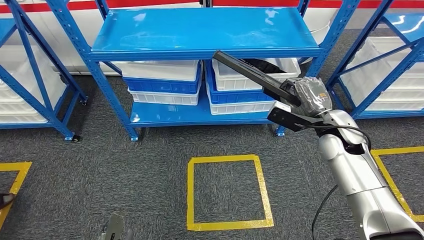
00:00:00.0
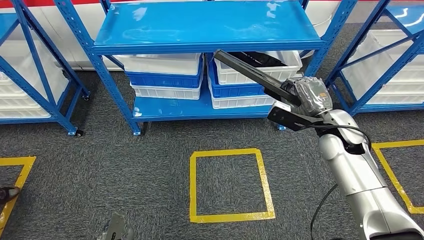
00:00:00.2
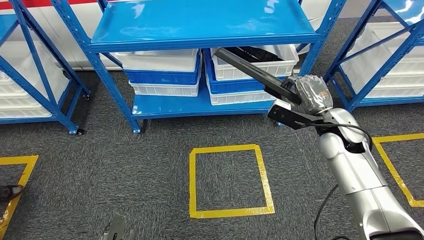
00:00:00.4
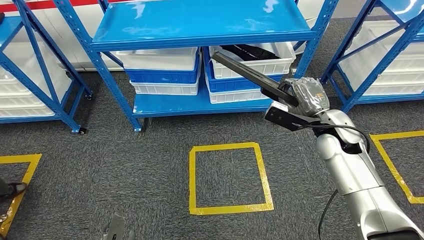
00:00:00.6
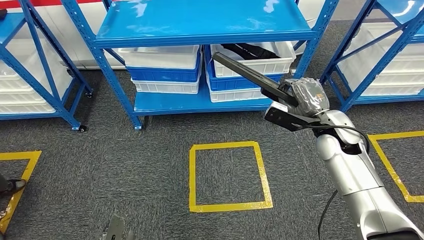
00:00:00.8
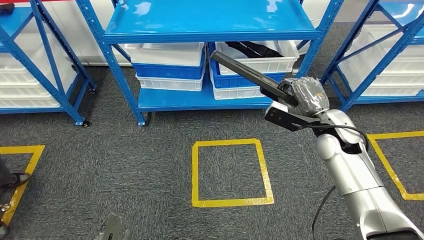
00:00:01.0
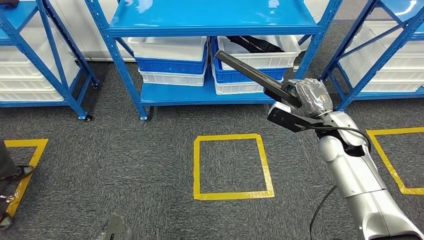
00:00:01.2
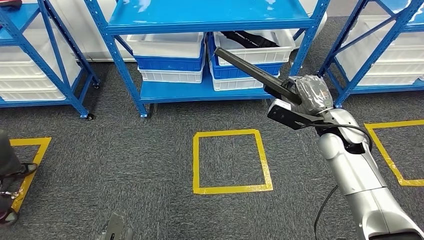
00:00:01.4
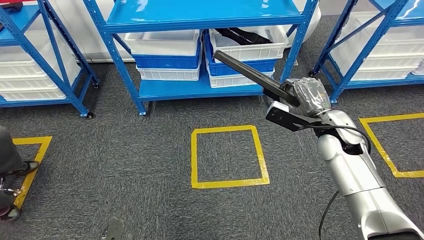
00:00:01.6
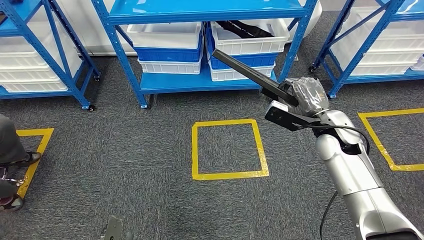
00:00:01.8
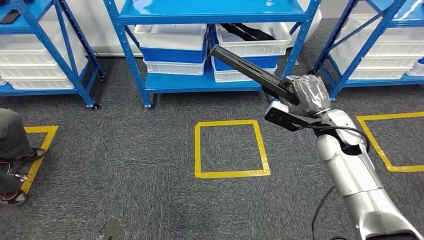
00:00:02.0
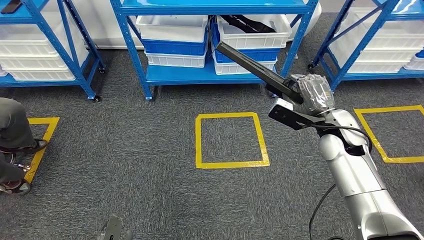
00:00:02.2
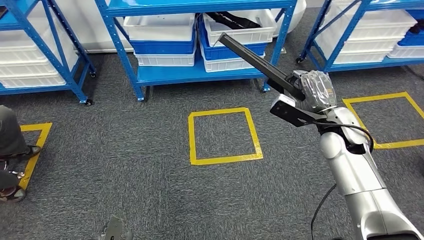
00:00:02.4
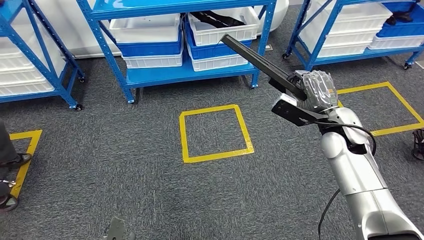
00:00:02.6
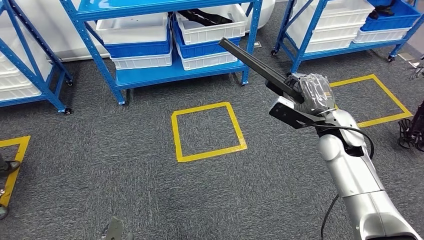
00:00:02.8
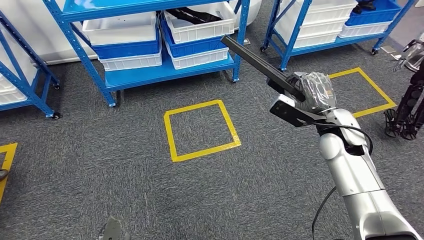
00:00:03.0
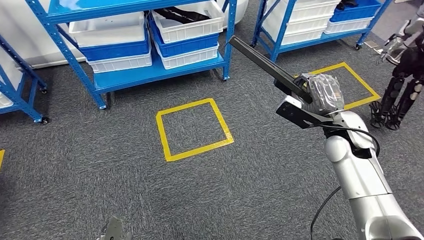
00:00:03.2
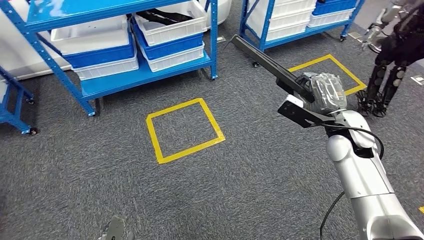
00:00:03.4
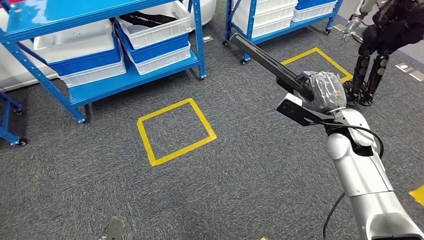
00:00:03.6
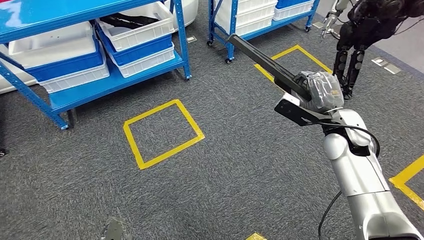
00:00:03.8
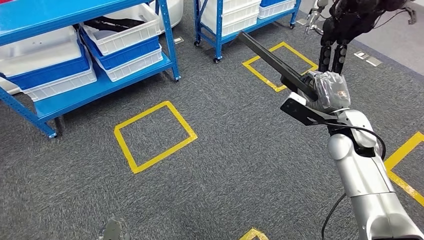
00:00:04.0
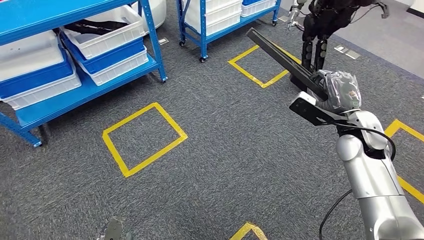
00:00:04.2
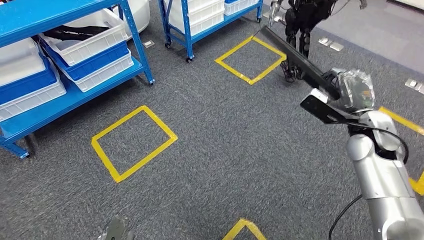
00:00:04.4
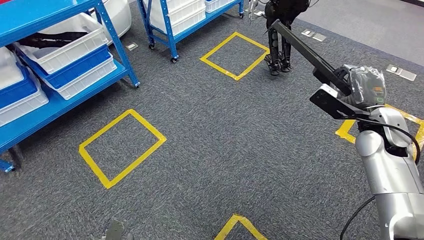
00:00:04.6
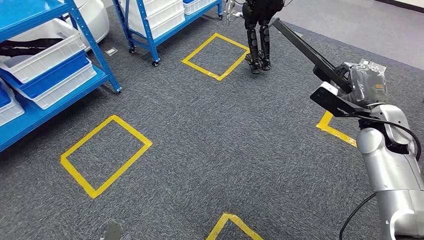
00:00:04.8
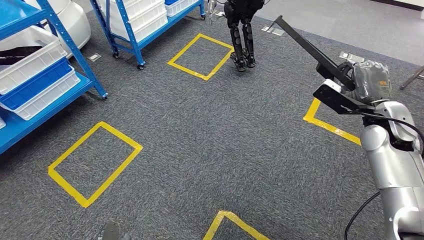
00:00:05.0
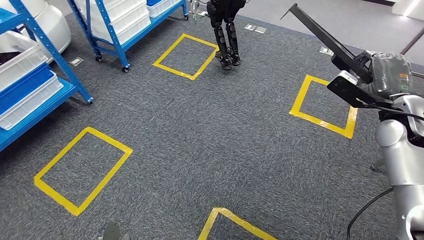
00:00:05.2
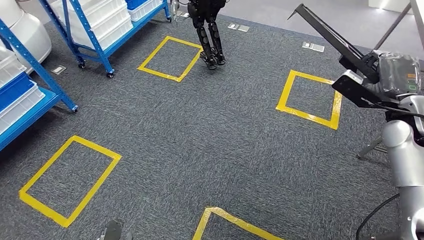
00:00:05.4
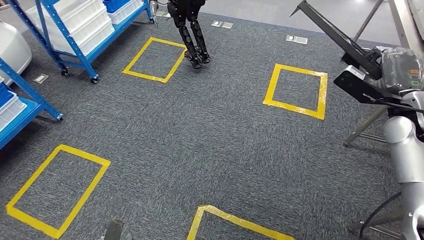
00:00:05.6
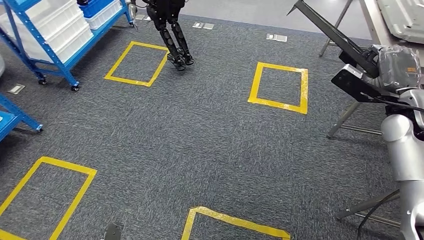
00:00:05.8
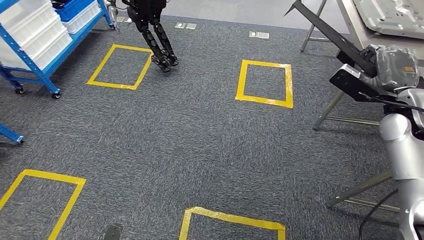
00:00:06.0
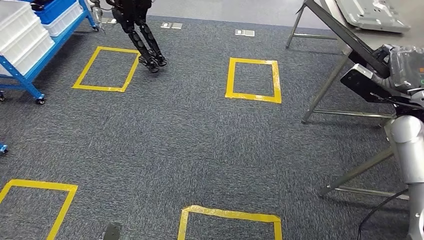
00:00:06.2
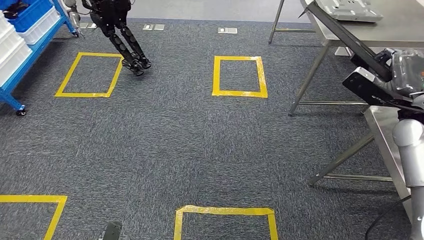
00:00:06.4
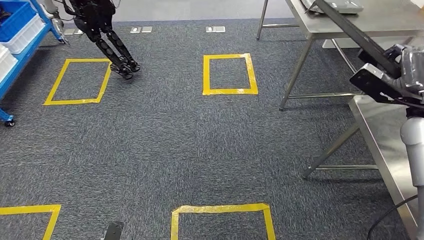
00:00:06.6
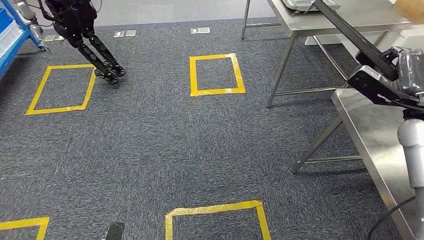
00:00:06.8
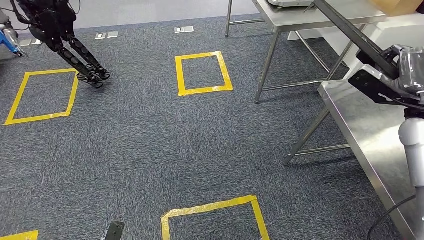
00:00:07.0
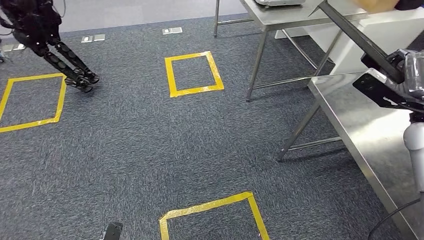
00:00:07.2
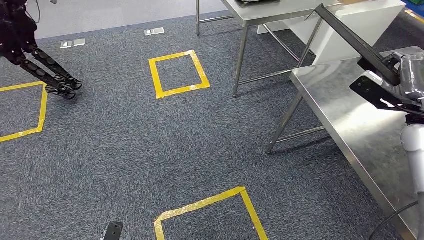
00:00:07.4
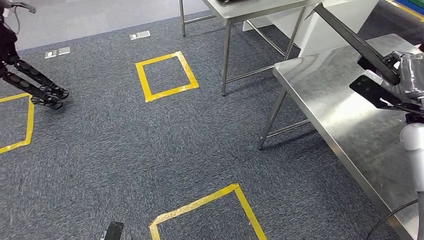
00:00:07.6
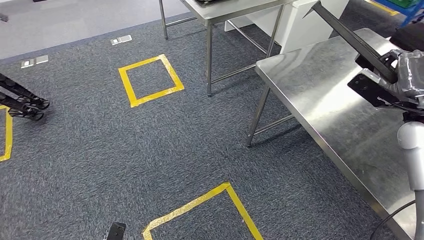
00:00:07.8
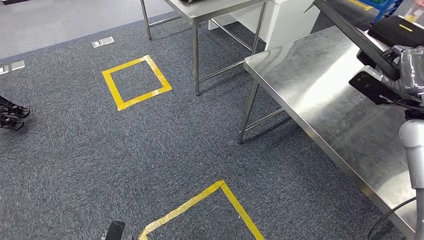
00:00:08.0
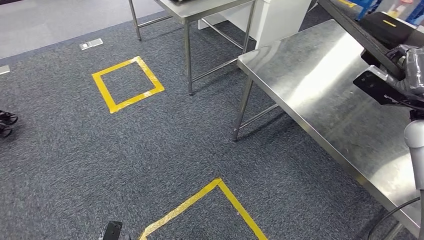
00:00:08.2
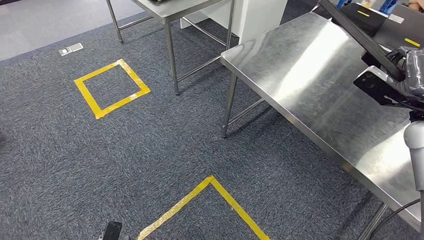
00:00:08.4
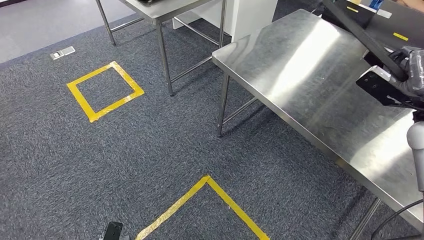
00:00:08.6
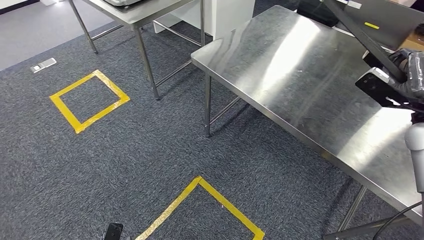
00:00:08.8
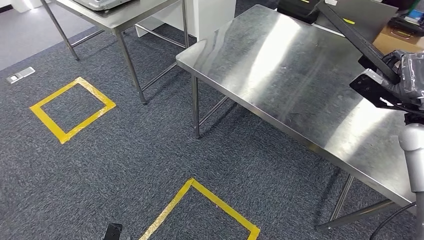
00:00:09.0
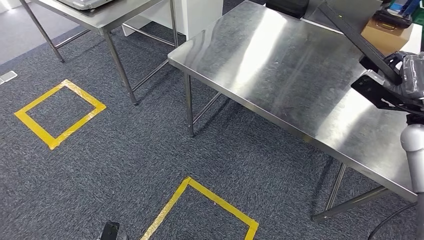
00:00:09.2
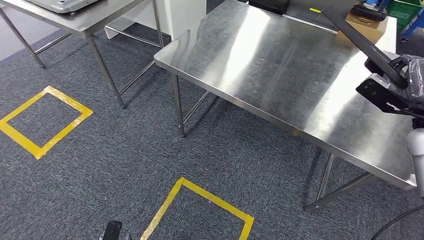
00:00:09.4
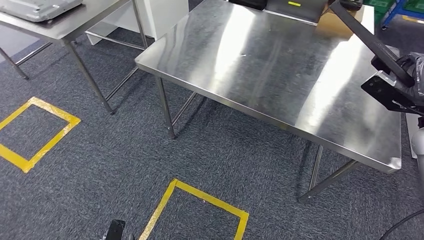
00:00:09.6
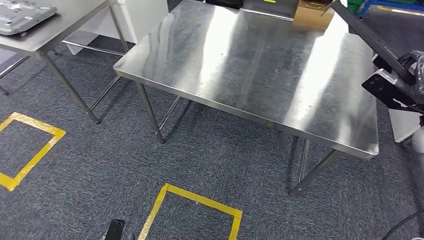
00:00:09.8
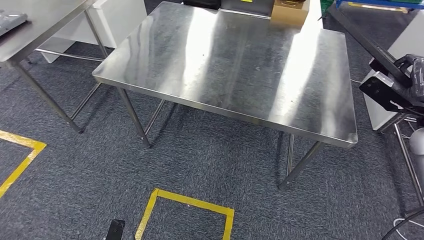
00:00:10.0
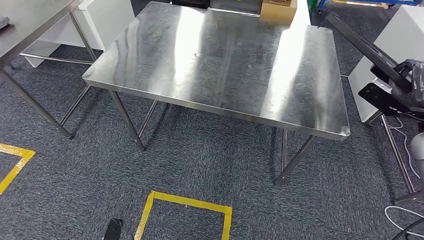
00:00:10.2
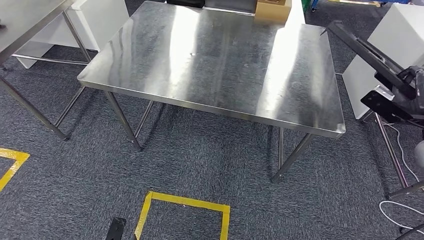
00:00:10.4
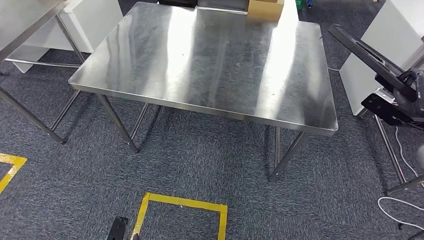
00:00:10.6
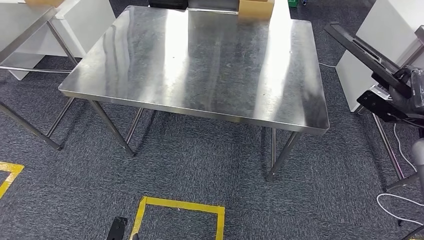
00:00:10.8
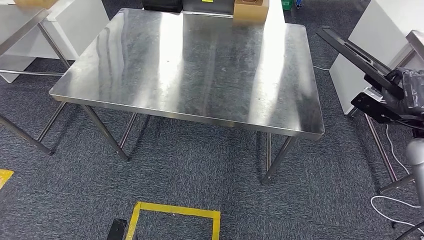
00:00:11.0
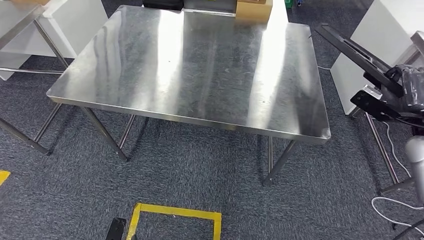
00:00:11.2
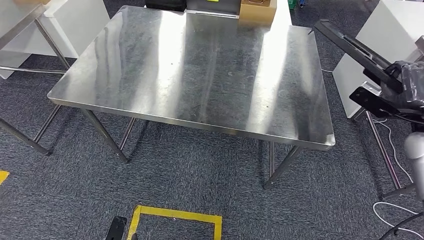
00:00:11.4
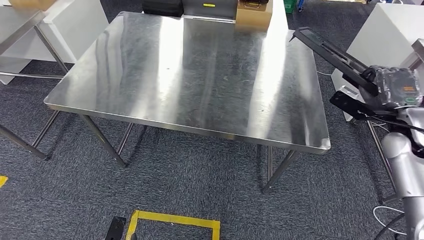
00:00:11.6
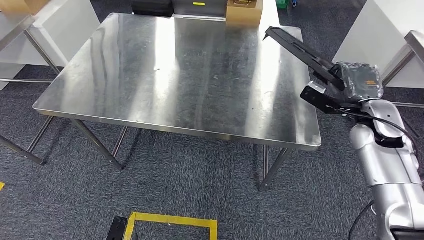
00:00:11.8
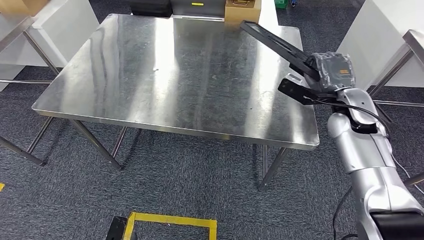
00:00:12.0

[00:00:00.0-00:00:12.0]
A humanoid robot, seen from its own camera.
Step, 00:00:00.0 to 00:00:11.8: Move the large material to the front of the workbench.

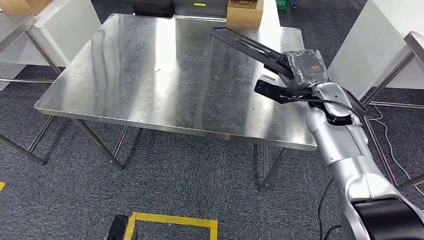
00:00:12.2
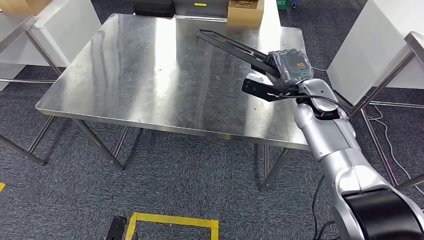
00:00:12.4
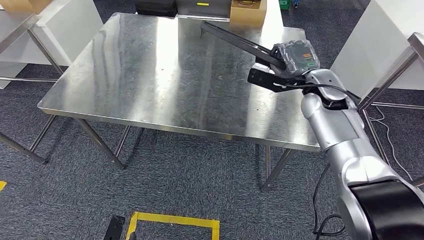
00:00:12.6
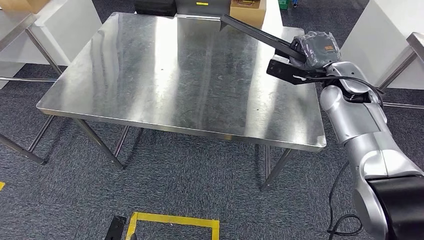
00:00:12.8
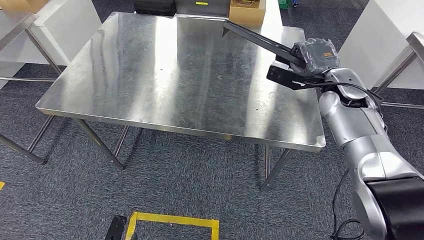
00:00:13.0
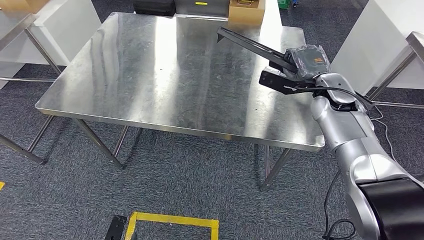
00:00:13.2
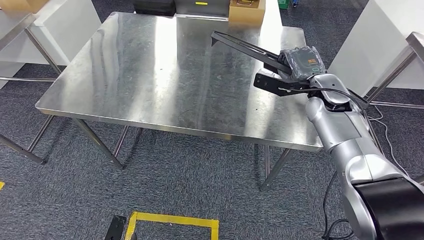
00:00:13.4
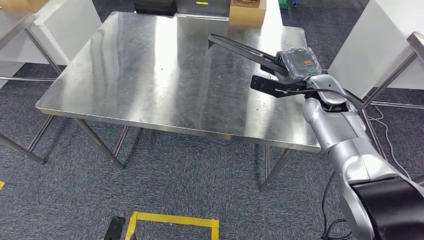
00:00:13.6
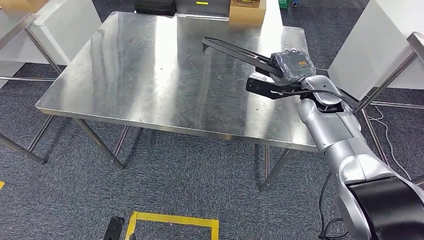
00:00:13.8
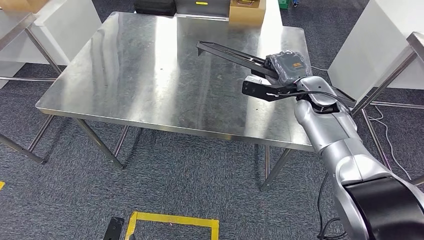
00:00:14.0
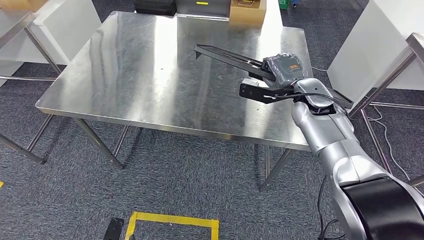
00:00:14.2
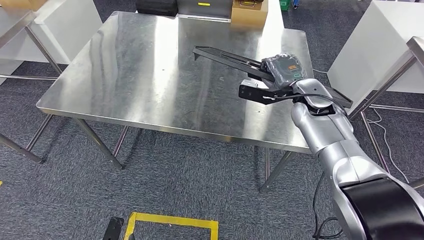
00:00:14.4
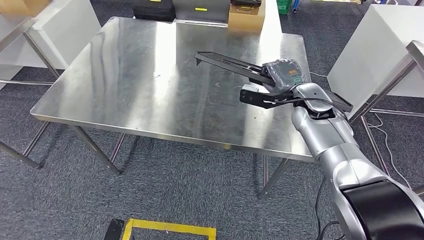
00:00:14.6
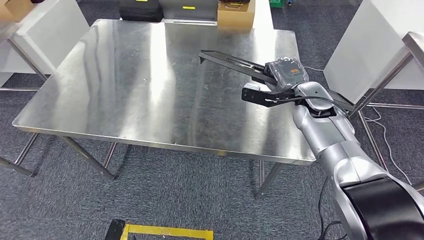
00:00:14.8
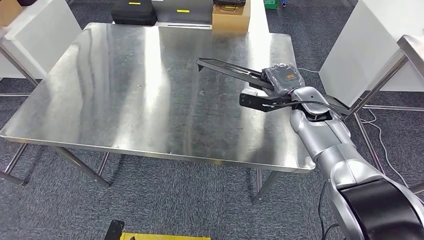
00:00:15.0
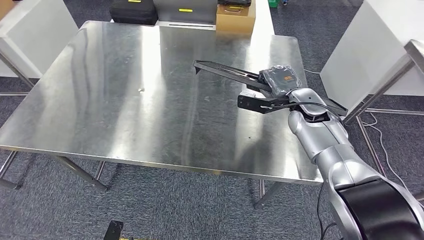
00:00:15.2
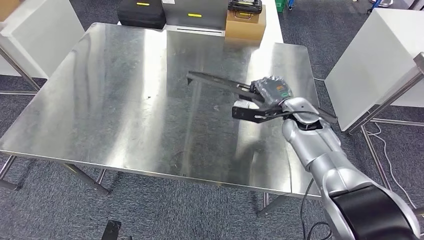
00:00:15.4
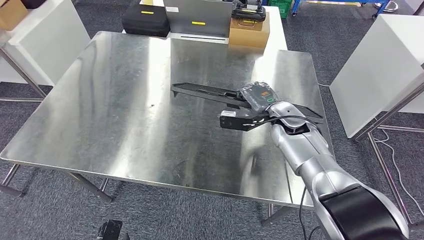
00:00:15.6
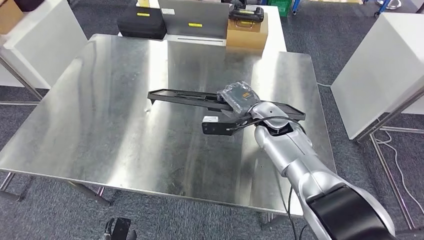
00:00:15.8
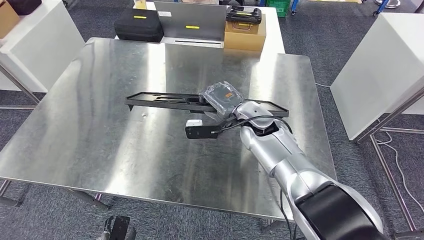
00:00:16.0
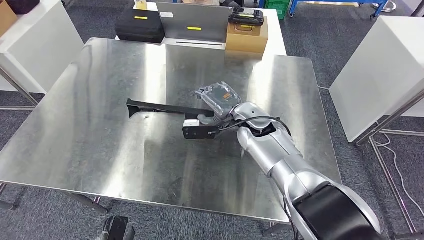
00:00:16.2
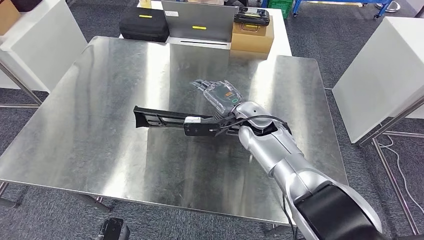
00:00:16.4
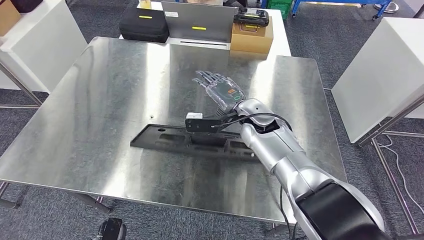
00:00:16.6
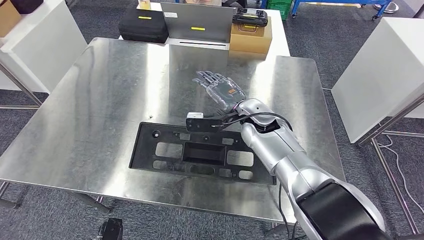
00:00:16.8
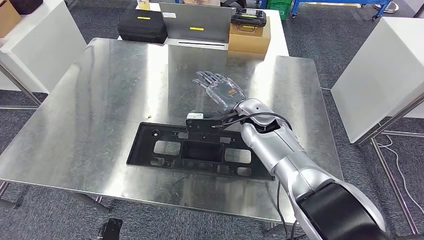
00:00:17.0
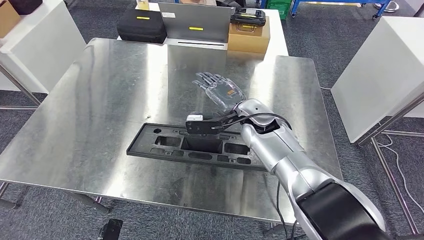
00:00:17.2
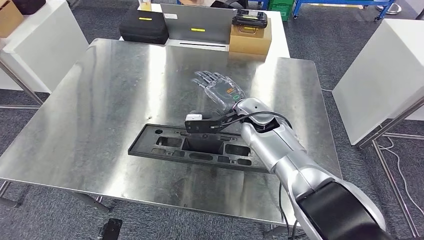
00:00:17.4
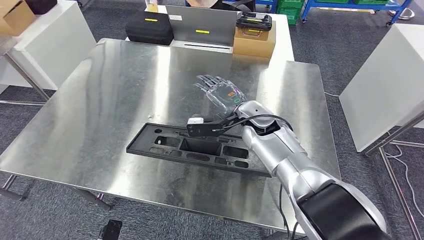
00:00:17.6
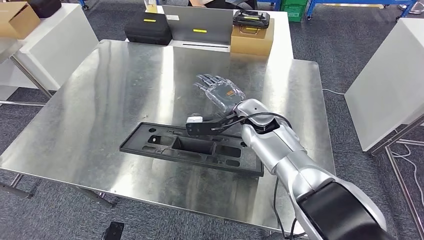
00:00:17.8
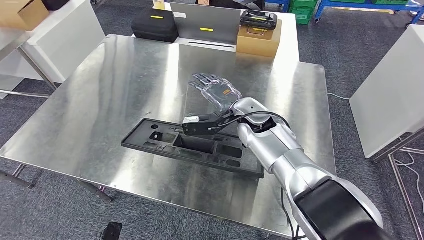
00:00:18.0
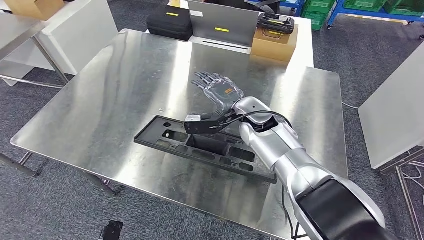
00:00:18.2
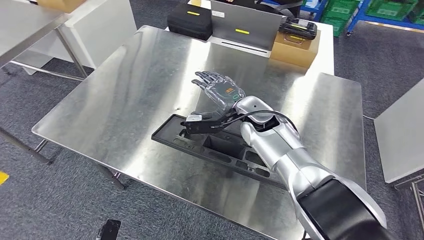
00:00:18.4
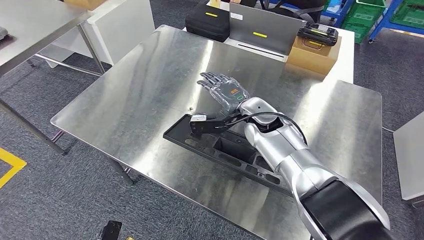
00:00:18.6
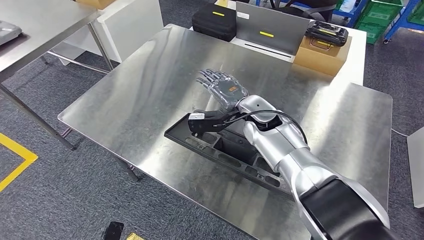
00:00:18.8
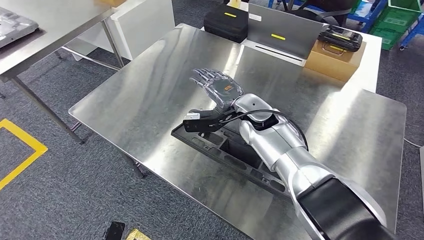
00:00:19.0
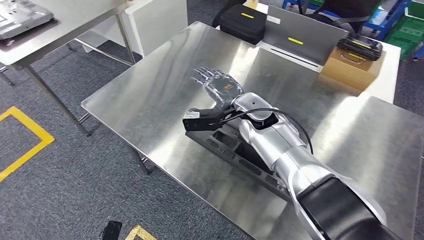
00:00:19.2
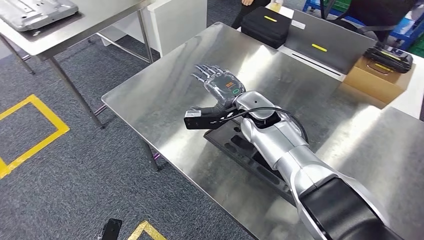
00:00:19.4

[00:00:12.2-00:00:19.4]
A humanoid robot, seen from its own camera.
00:00:12.2 to 00:00:13.6: The hands move only a little.
